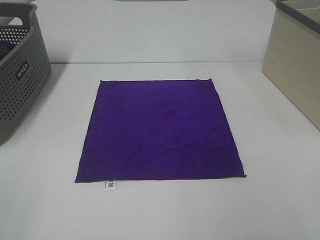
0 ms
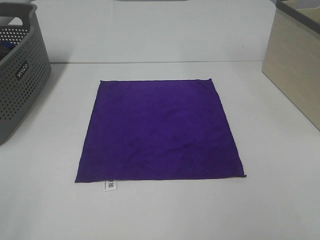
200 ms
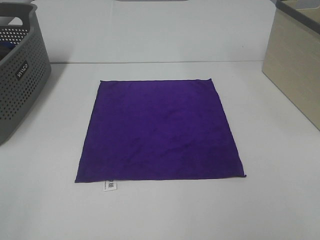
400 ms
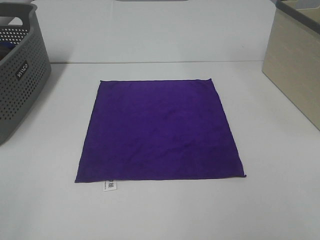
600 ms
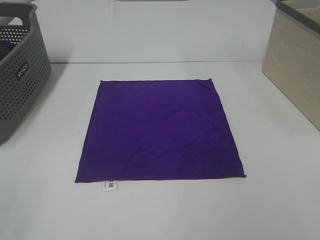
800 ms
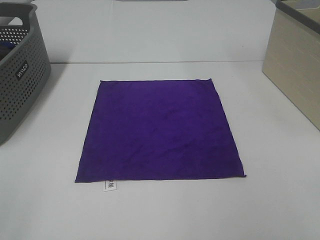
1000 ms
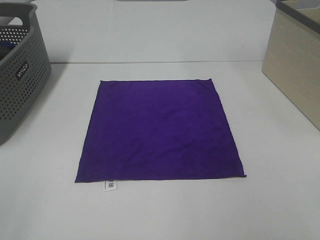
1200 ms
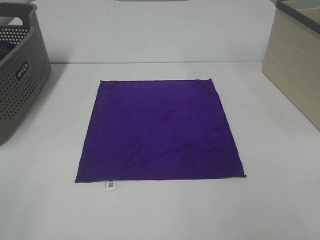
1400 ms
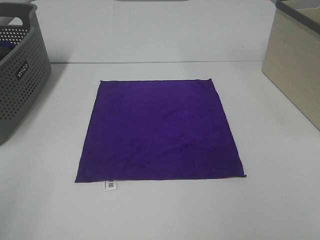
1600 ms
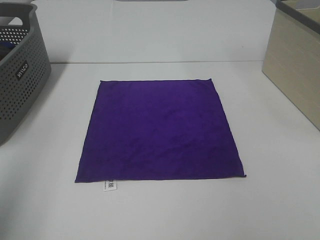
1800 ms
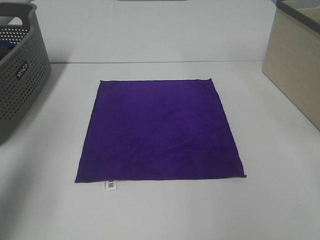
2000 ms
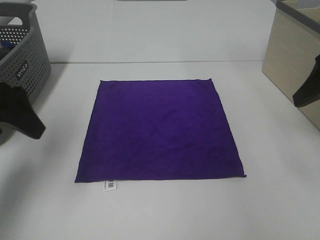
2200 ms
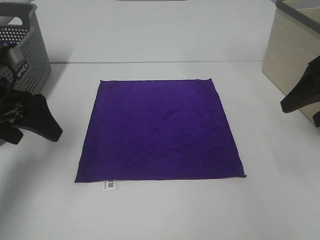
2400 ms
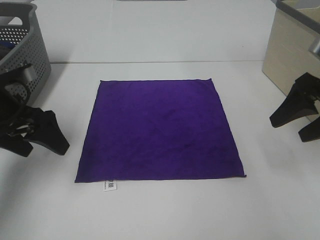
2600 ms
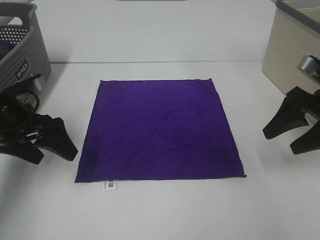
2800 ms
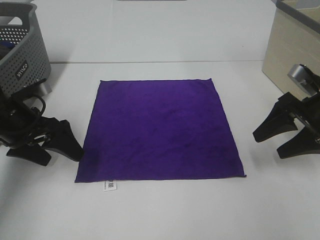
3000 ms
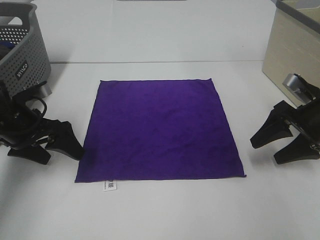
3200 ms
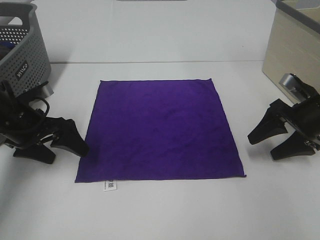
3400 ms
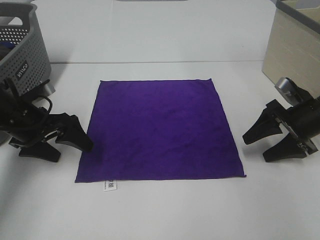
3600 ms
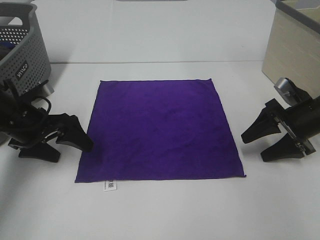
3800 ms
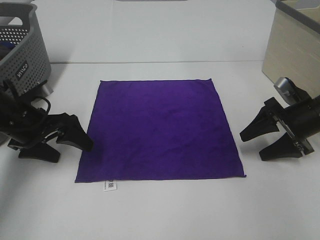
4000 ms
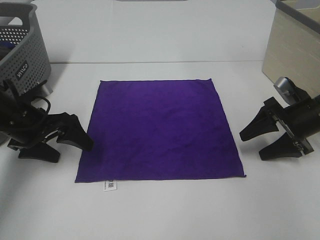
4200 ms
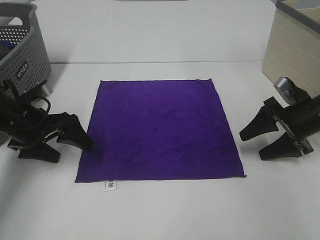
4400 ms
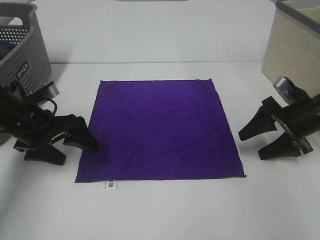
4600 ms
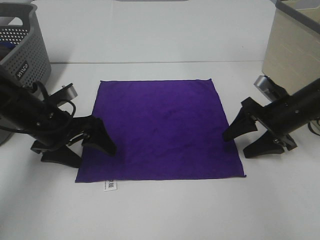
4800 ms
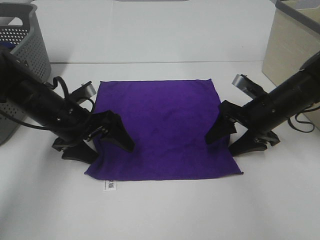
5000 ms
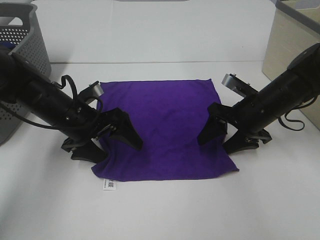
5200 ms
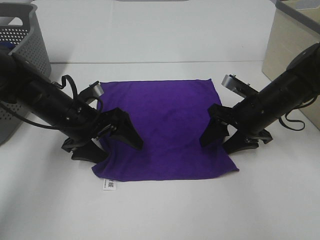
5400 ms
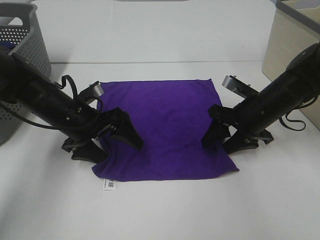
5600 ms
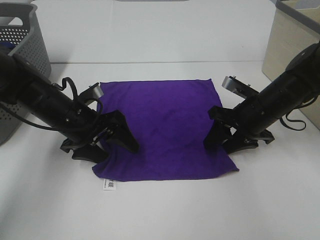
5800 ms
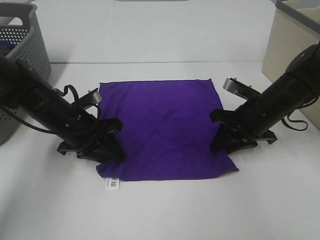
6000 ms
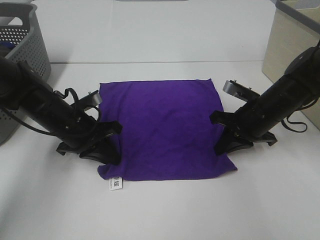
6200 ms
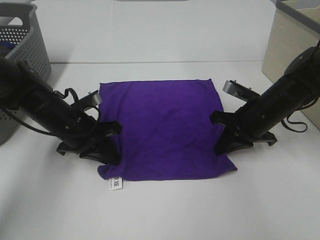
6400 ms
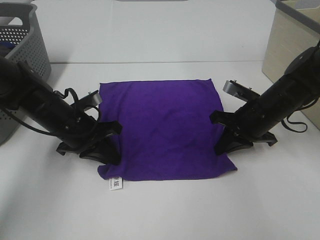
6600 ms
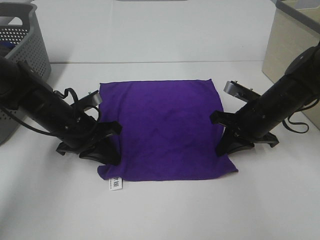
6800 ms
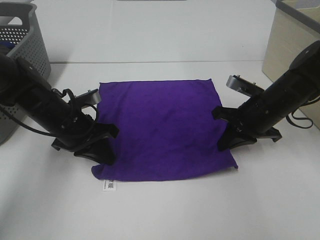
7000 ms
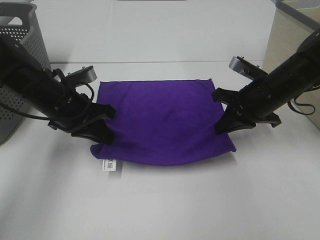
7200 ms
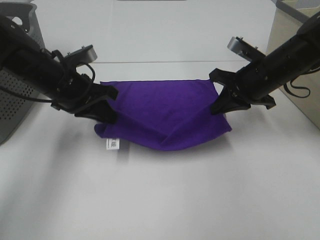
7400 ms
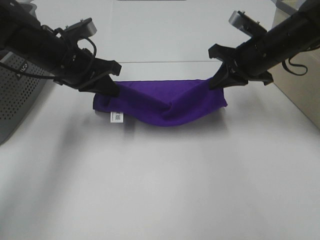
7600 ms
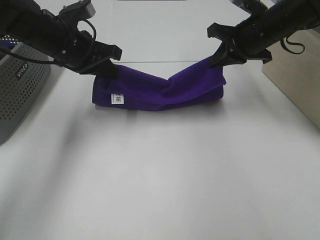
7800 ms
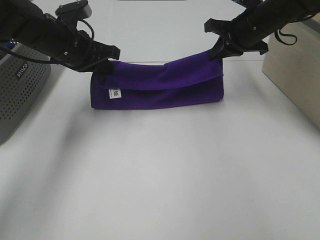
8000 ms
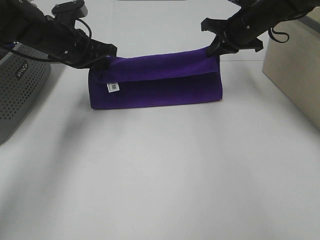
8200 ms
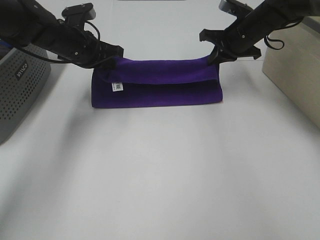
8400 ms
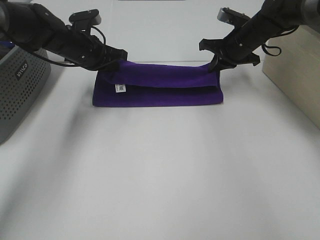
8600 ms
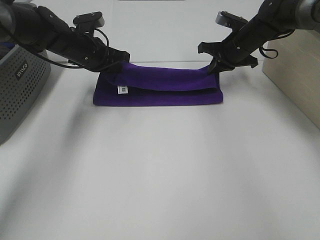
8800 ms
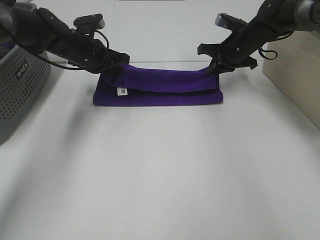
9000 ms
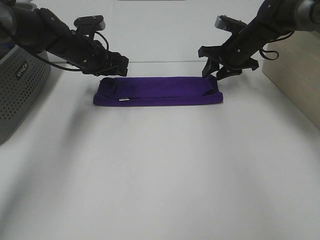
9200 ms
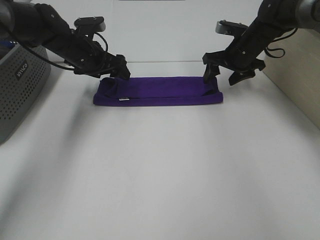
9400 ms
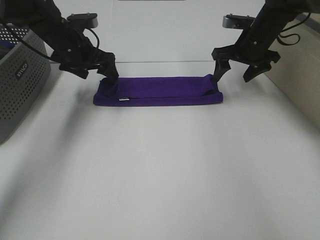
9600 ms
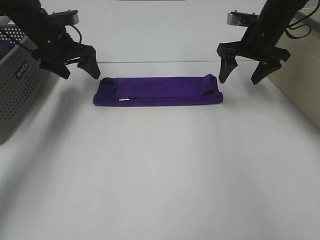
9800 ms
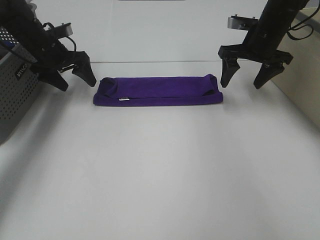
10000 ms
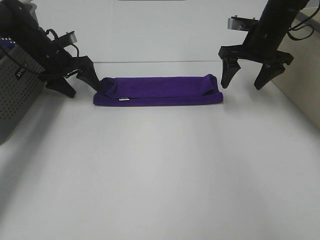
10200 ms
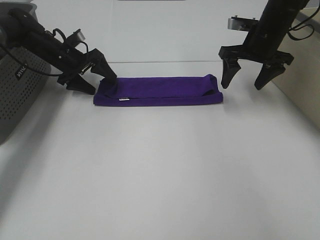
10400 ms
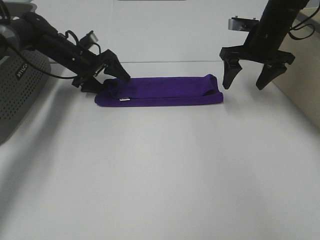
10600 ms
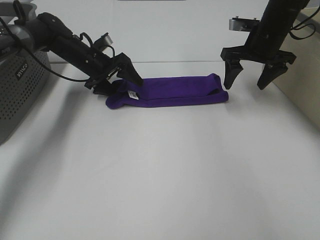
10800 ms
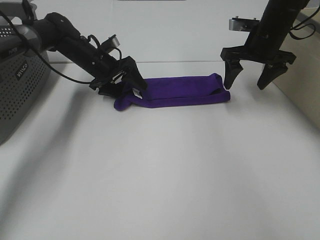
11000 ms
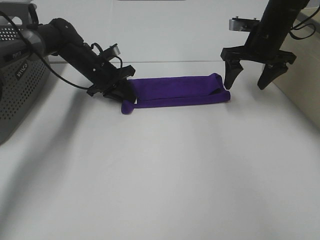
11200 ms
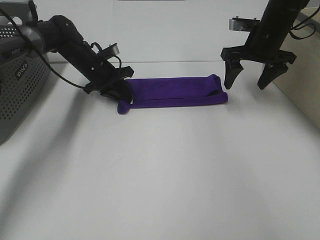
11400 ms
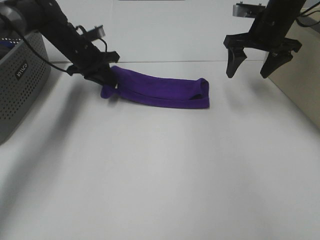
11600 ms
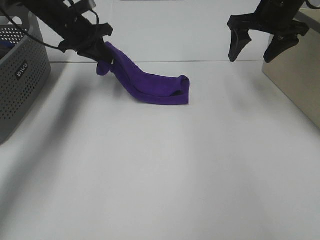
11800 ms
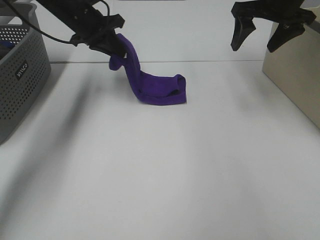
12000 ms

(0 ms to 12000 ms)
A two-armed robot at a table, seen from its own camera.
Task of the whole recording: Fold towels.
Step, 0 ms - 6400 ms: Left hand: grab the bottom left corner of purple towel.
Step, 0 ms - 6400 ms: Right hand: grab the bottom right corner of purple towel.
Step, 6600 ms - 9200 ms: Left hand: fold the purple towel up.
Step, 6600 ms - 9200 ms: Right hand: fold the purple towel up.
1600 ms - 3000 ms: Both grippers move forward and downward, roughly 30 cm.
3000 ms - 4400 ms: The right gripper changes place by some 5 cm.
4400 ms - 6000 ms: The left gripper is displaced to the right by about 10 cm, and closes its fingers, while the right gripper is displaced to the left by about 10 cm, and closes its fingers.
6000 ms - 7600 ms: The left gripper travels upward by roughly 10 cm. Meanwhile the right gripper heads upward and forward, covering approximately 10 cm, and closes.
7600 ms - 9000 ms: The left gripper goes approximately 10 cm forward. The right gripper moves forward and downward, approximately 15 cm.
9000 ms - 10400 ms: The right gripper travels upward and backward by some 5 cm, and opens, while the left gripper moves to the left and forward, approximately 10 cm, and opens up.
10400 ms - 12000 ms: The left gripper travels upward and to the right by some 15 cm, and closes its fingers; the right gripper shifts roughly 10 cm upward.

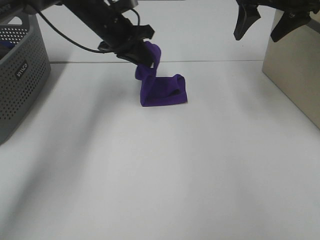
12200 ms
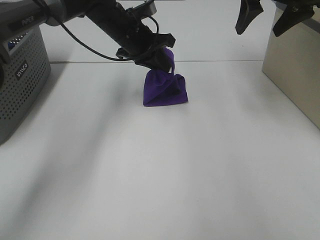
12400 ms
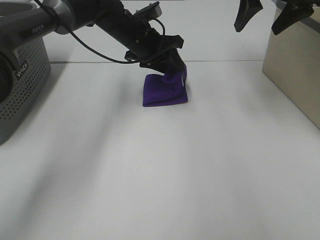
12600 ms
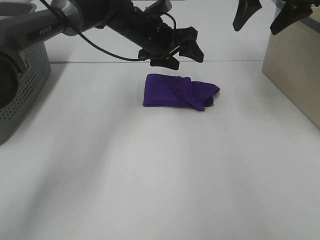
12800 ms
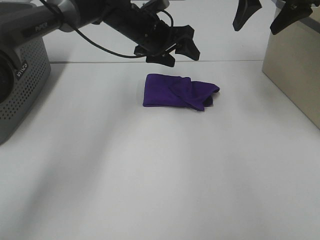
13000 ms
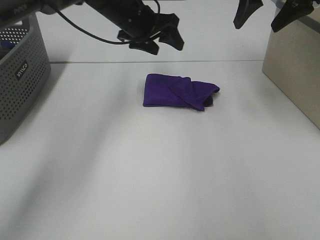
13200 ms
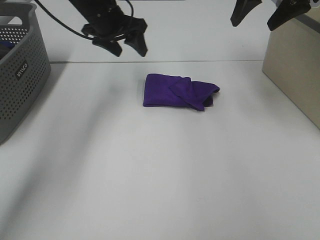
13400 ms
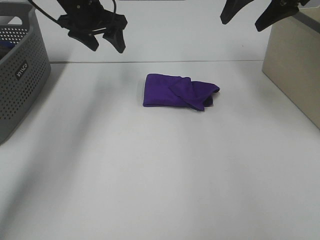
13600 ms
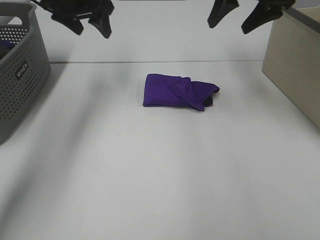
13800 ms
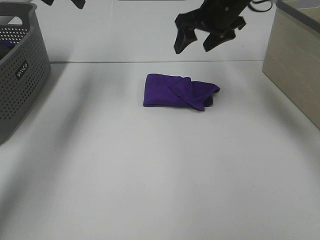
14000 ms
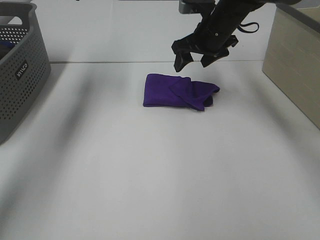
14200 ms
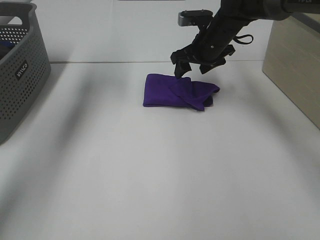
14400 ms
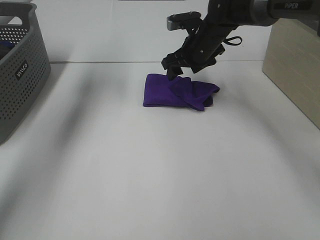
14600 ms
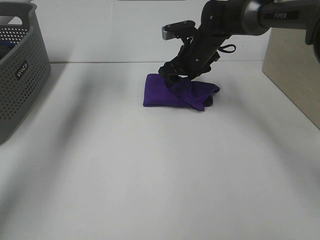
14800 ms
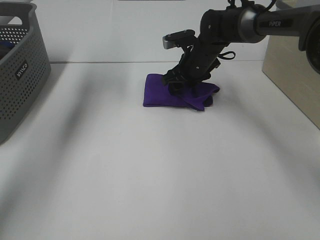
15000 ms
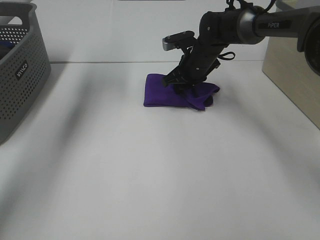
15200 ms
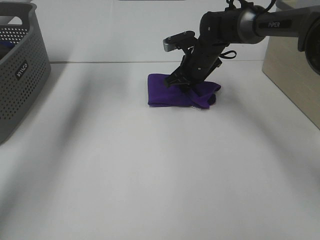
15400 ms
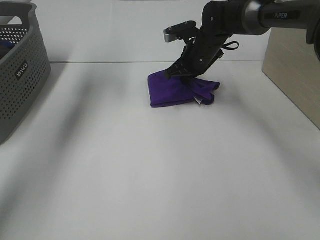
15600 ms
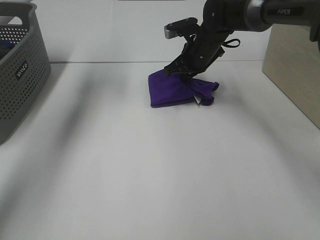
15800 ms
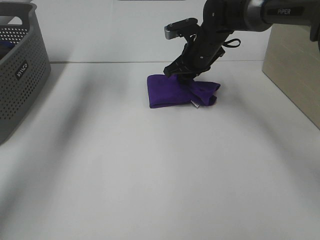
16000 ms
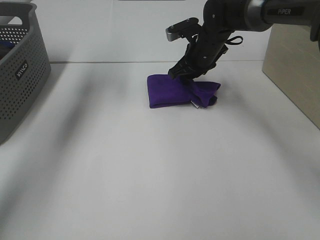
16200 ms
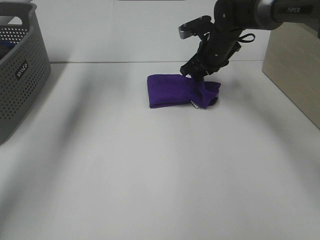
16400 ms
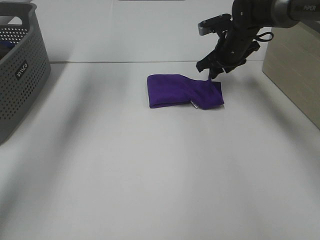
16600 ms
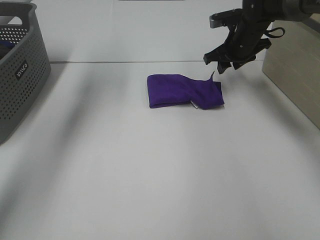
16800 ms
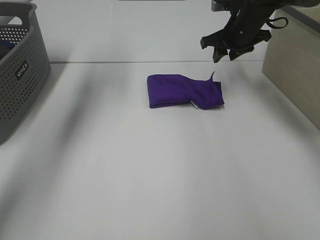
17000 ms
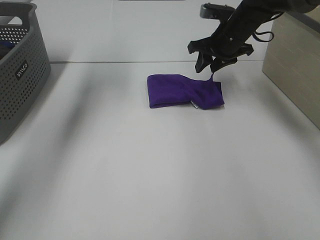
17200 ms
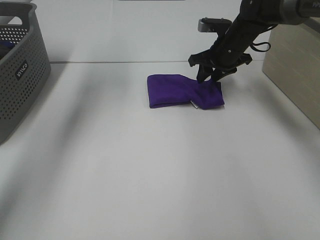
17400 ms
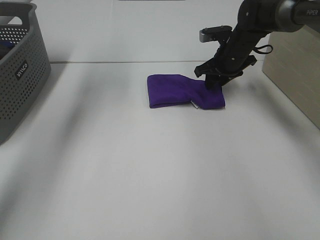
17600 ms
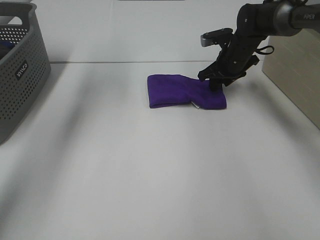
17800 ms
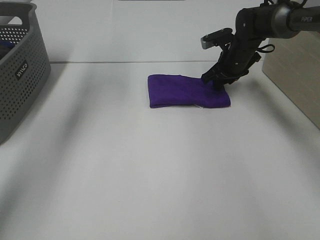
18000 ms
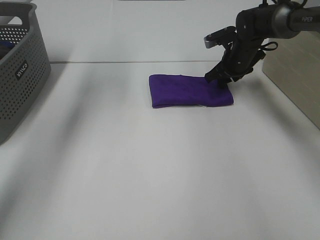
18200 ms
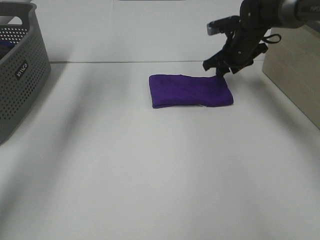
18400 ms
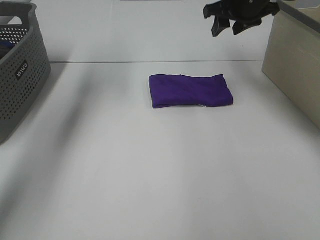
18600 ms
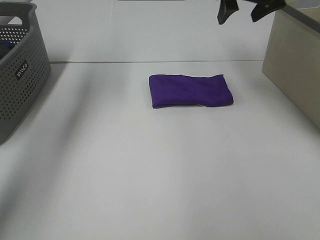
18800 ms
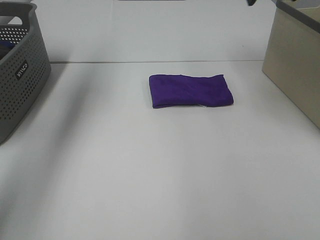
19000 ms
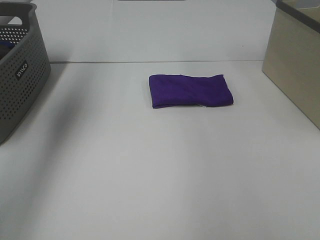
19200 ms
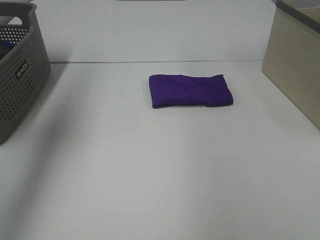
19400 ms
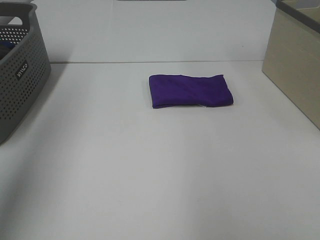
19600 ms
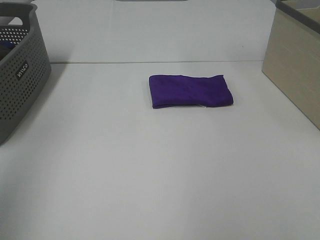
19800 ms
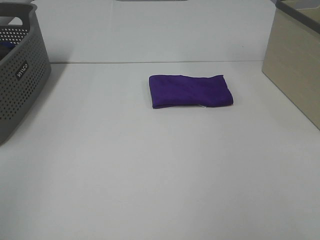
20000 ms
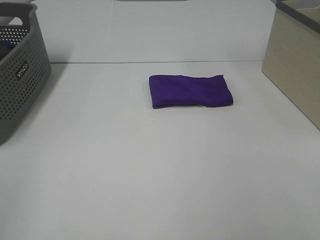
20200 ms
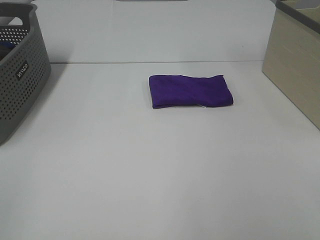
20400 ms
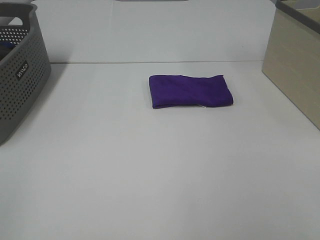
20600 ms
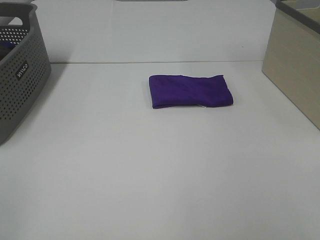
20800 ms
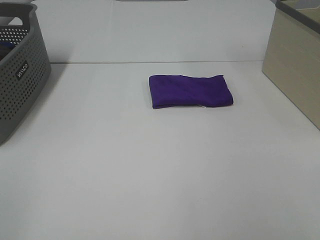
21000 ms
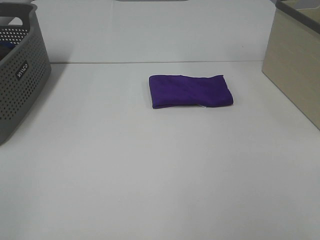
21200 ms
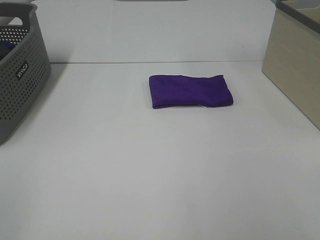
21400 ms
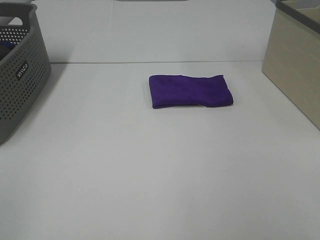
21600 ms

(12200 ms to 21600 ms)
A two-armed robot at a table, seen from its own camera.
Task of the whole recording: Fold towels.
Step, 12800 ms - 18200 ms: Right hand: adjust the purple towel.
12200 ms - 13800 ms: The left gripper moves to the left and upward, about 10 cm, and opens its fingers.
13800 ms - 15400 ms: The left gripper heads upward, covering about 5 cm. Meanwhile the right gripper shifts approximately 20 cm downward and to the left, and closes its fingers.
15400 ms - 17000 ms: The right gripper shifts some 10 cm to the right and upward, and opens up.
18400 ms - 20000 ms: Both grippers travel together backward, approximately 50 cm. The right gripper opens up.
